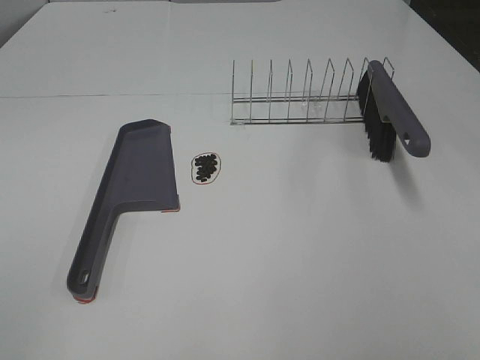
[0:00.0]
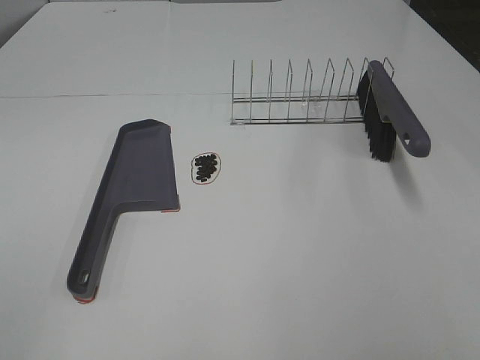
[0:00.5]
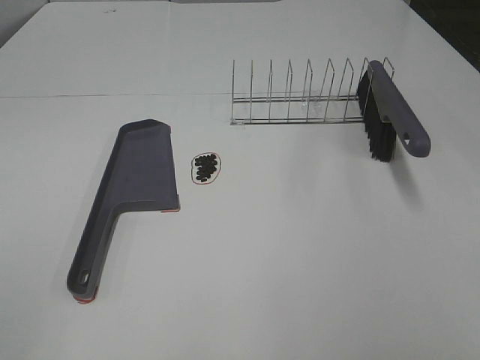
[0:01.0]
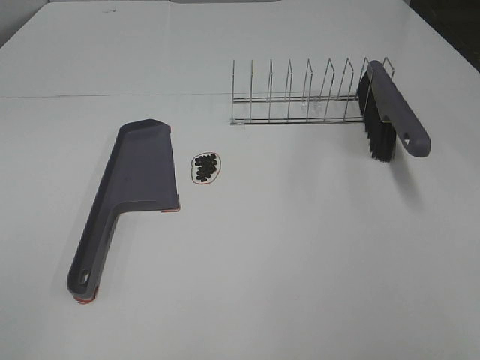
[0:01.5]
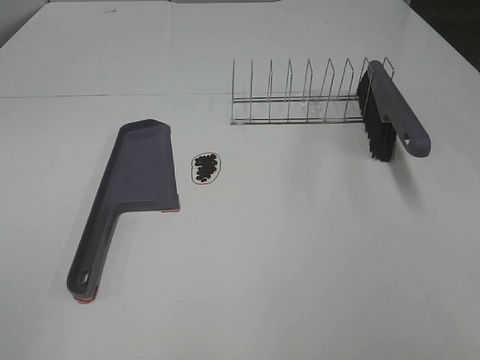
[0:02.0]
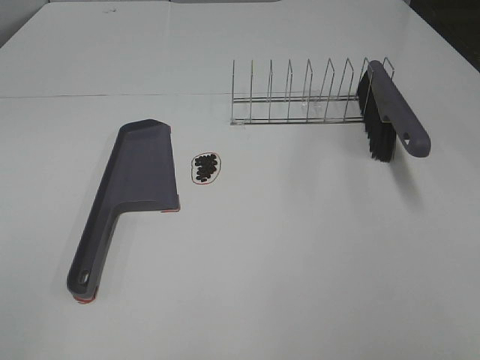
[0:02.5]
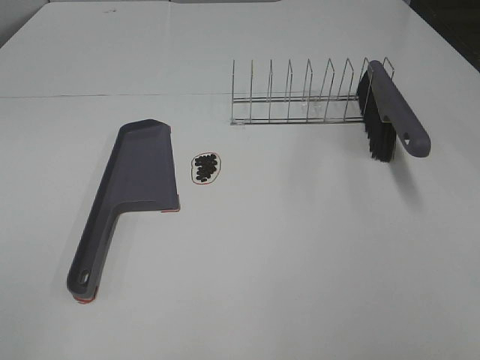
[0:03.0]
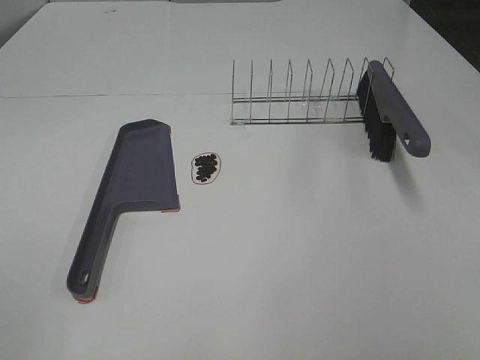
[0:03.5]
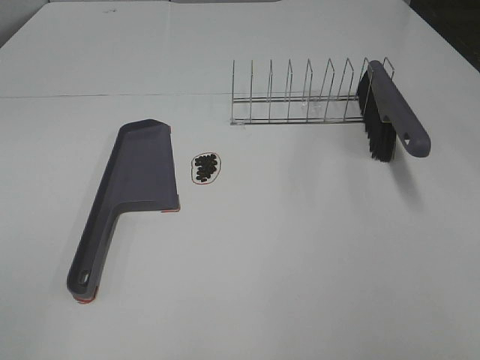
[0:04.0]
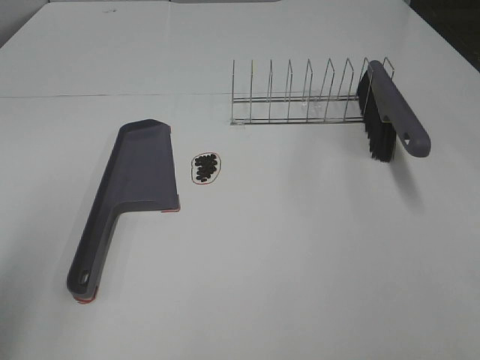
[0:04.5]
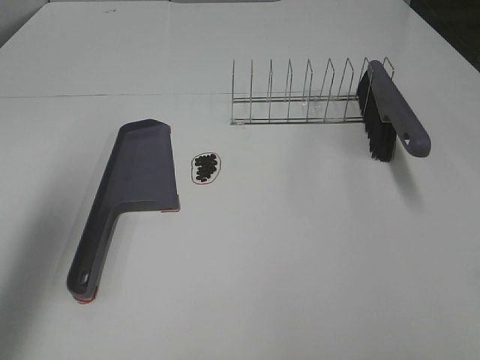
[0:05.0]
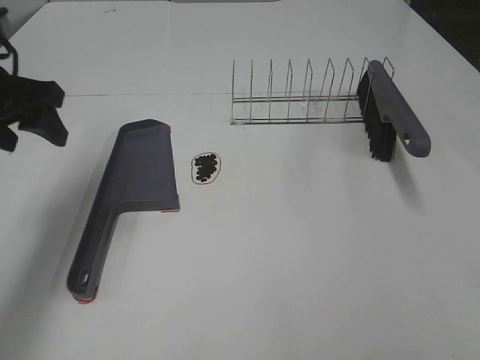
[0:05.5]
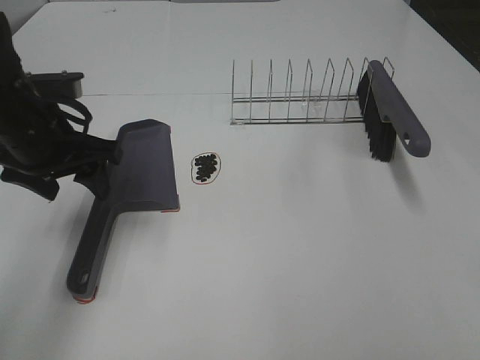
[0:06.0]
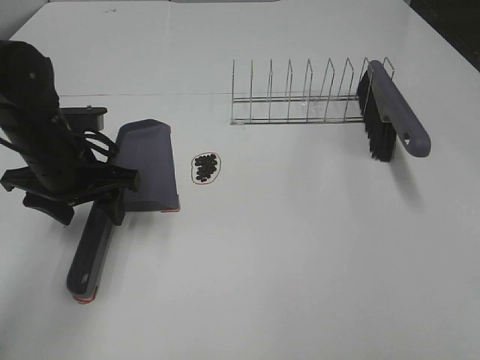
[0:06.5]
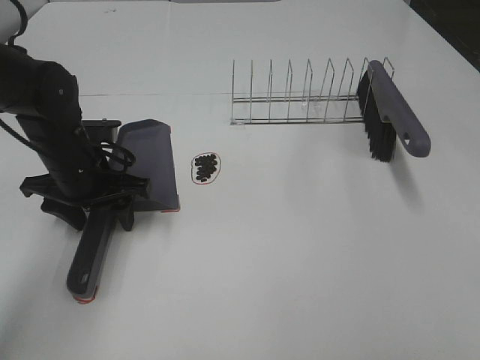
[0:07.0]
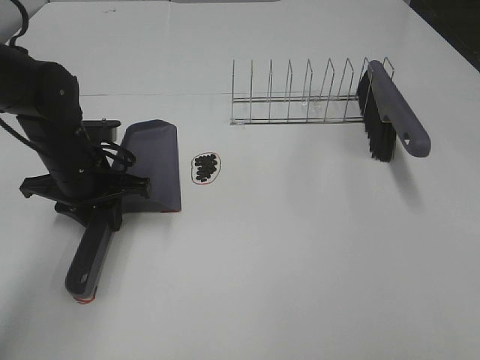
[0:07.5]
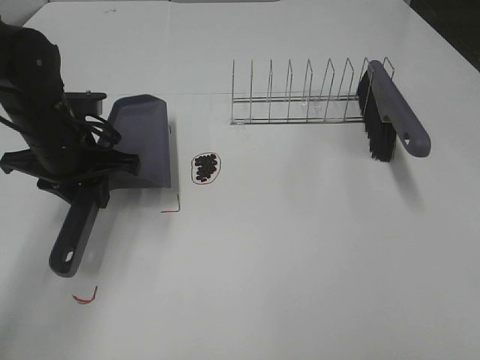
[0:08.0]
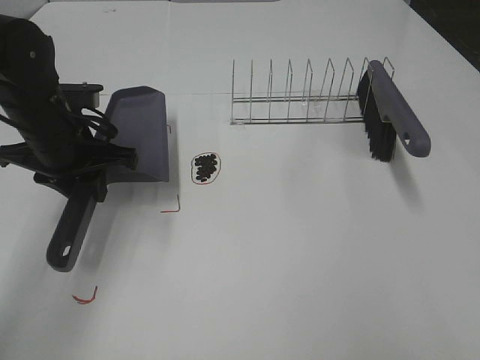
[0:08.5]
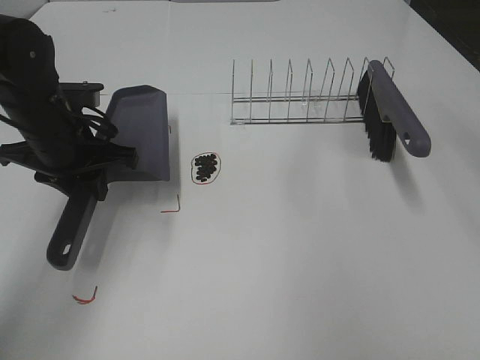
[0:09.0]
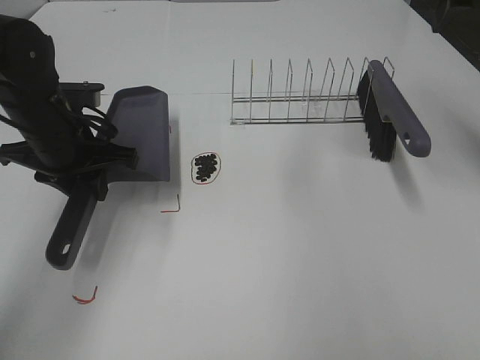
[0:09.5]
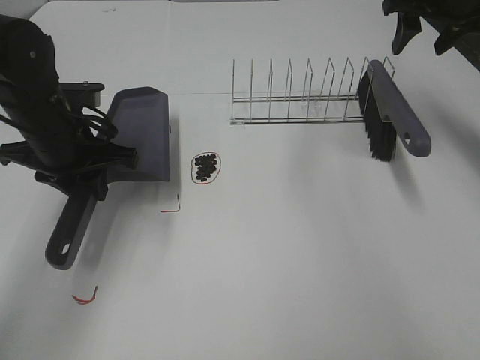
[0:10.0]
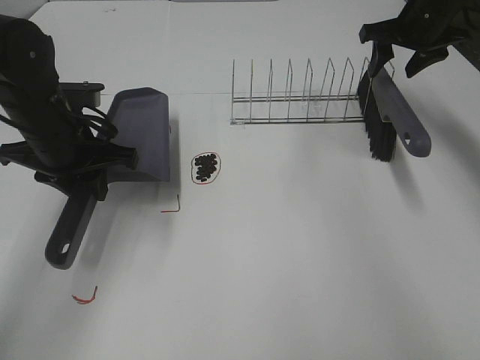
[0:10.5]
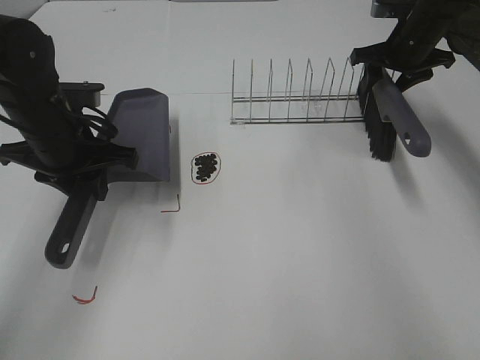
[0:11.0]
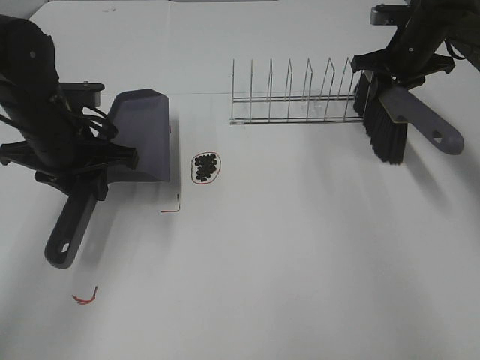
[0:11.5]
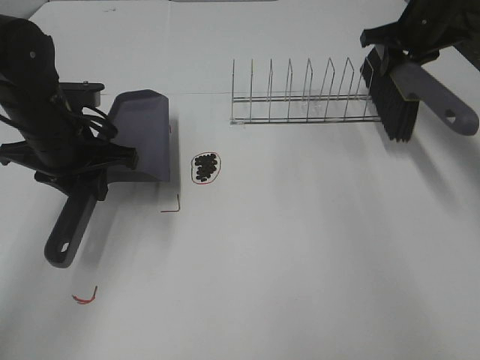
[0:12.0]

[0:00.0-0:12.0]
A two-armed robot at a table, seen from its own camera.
Task of the whole recording: Sweep Coffee Bean.
Step, 0:00.0 to 0:07.5: Left hand: grab the dustpan.
Step, 0:08.5 to 0:11.0: Right hand:grab the broom.
0:00.0 to 0:04.0: The two grippers keep their place.
0:04.0 to 0:06.0: The left gripper heads forward, covering about 30 cm.
0:06.0 to 0:08.0: The left gripper closes its fingers.
0:08.0 to 0:10.0: The right gripper is displaced forward by some 50 cm.
0:10.0 to 0:12.0: The right gripper heads downward, covering roughly 5 cm, and closes up.

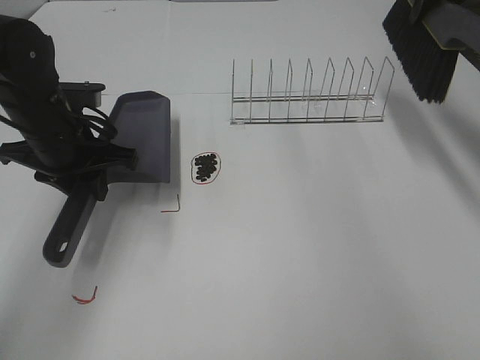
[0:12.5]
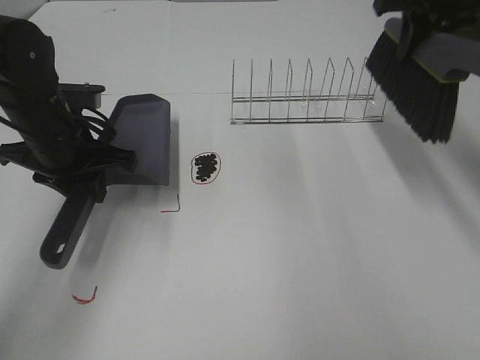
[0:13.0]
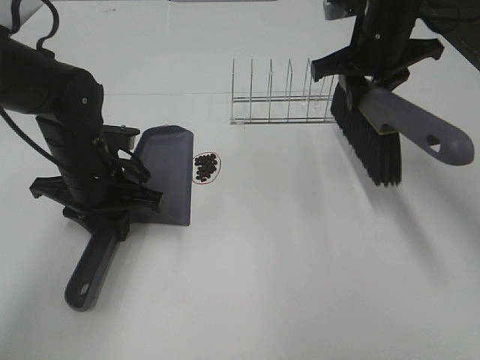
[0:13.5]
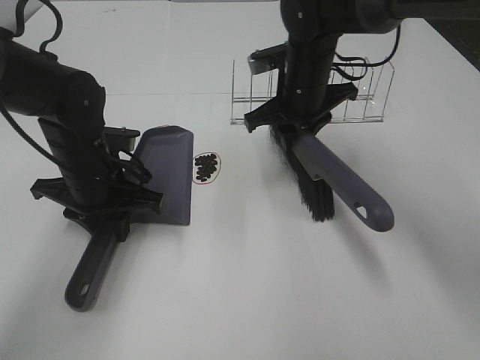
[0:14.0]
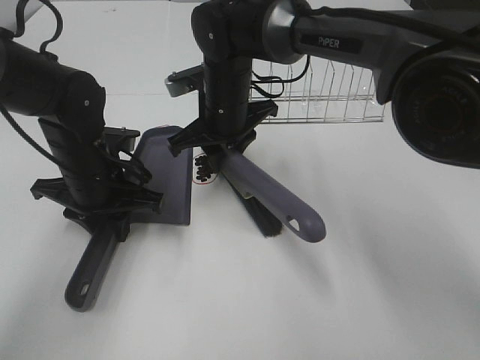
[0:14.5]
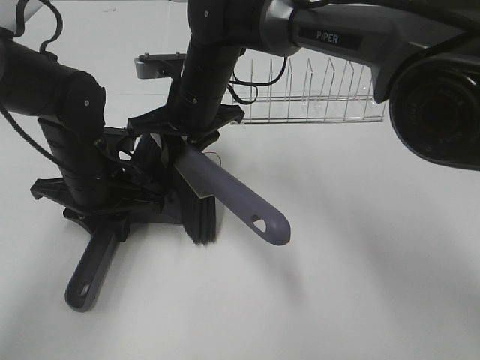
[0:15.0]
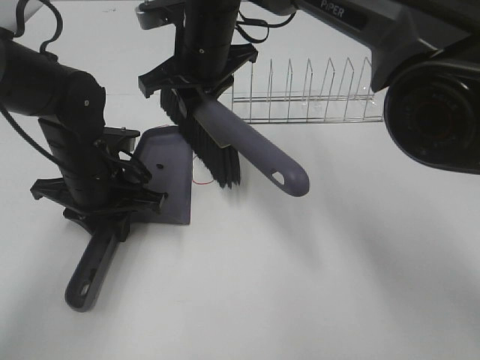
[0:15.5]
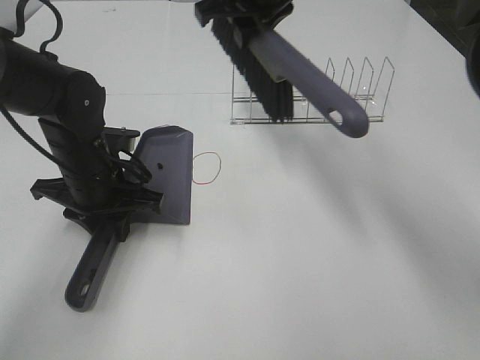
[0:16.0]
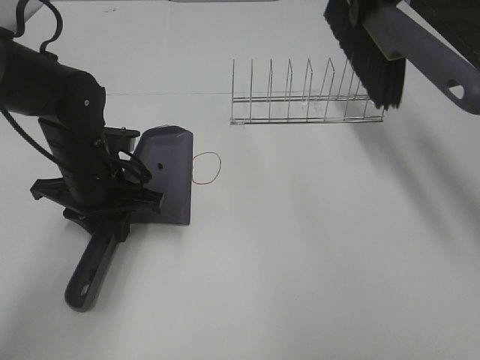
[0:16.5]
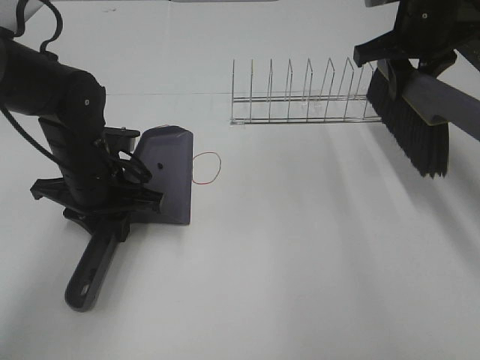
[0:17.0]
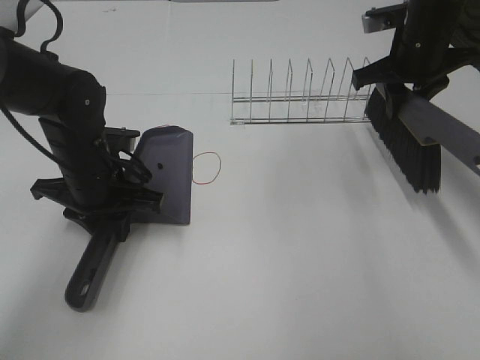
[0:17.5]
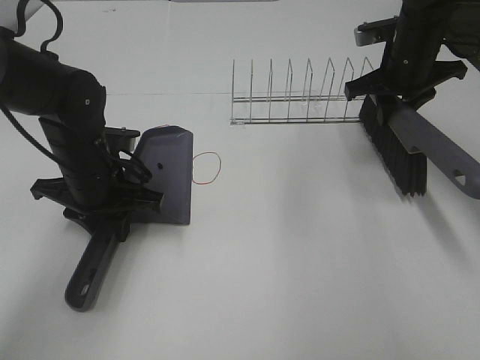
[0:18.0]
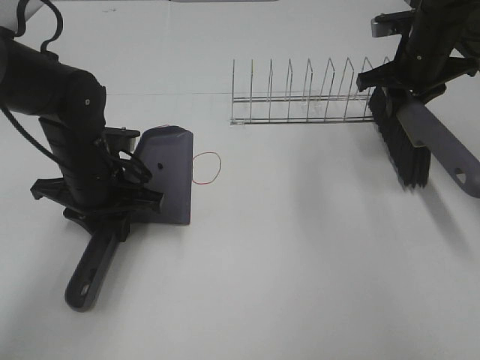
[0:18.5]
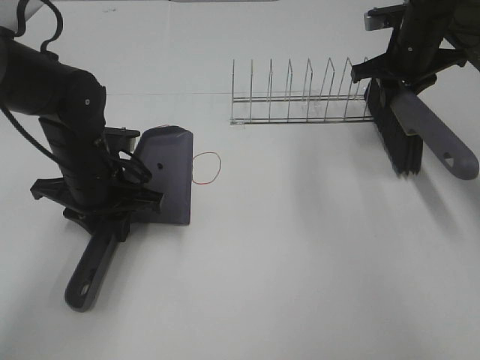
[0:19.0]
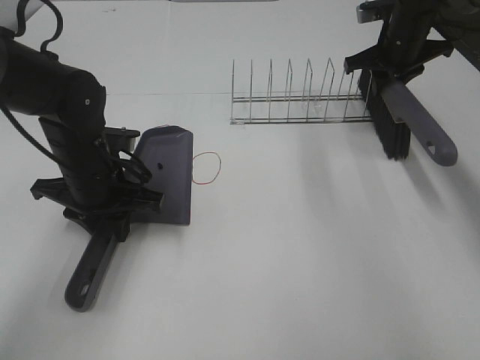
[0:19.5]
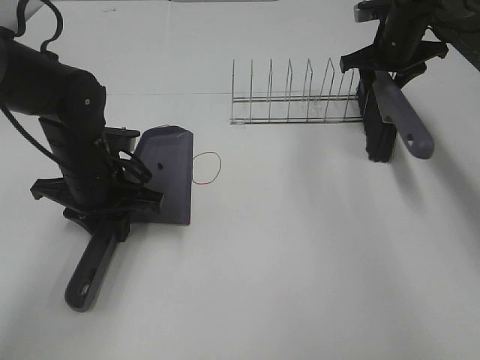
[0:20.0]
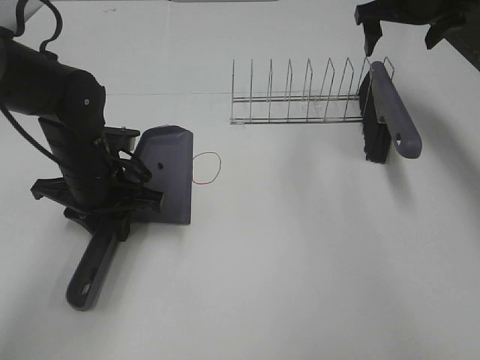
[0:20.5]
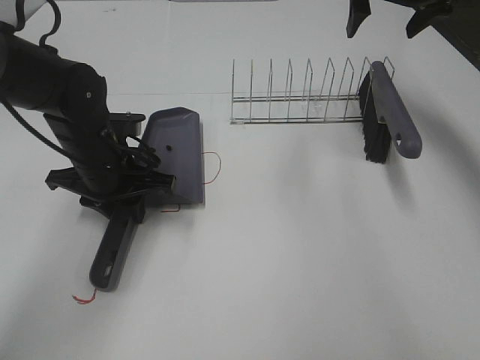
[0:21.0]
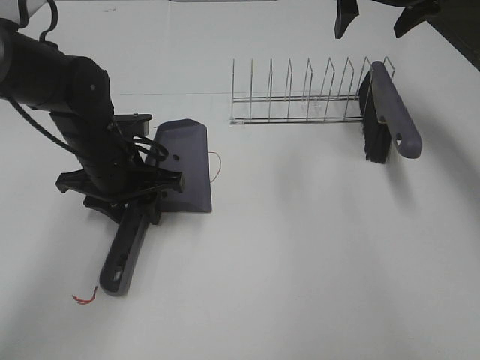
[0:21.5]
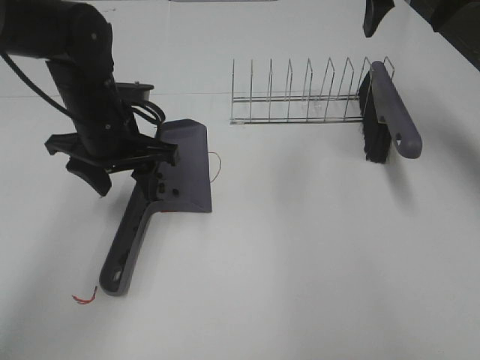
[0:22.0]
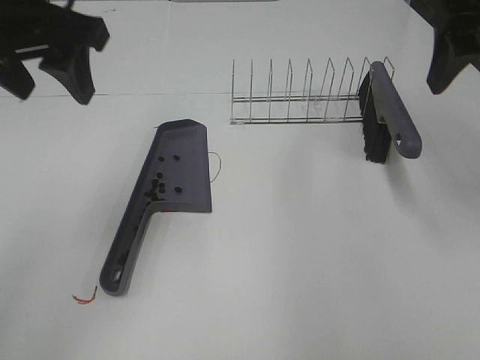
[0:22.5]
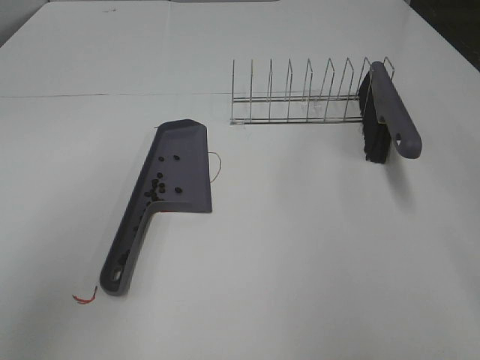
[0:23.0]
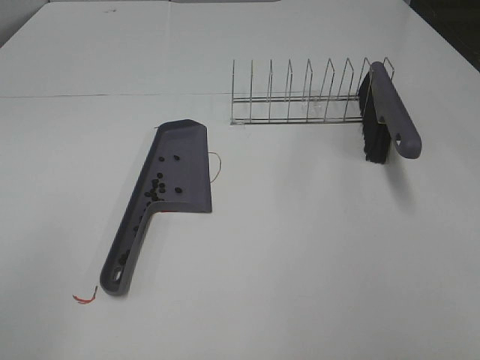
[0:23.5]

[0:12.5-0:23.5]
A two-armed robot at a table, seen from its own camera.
Task of the whole recording: Sweep Coffee Bean.
Step, 0:12.5 to 0:15.5: Right hand:sweep the coffee beans into the dustpan.
Step, 0:16.0 to 0:20.0: Right hand:place the broom on the rack.
Step, 0:20.5 to 0:21.5: Left hand:place the dustpan on the table.
0:12.5 to 0:14.5: The right gripper shifts about 35 cm to the left and downward, while the left gripper travels downward by roughly 5 cm.
0:14.5 to 0:16.0: The right gripper heads upward, covering about 15 cm.
0:16.0 to 0:18.0: The right gripper travels to the right and downward by roughly 20 cm.
0:18.0 to 0:20.0: The right gripper goes roughly 10 cm forward, and opens up.
0:20.0 to 0:21.5: The left gripper opens up. The right gripper is displaced upward by some 10 cm, and opens.
0:21.5 to 0:23.5: The left gripper goes approximately 40 cm backward, upward and to the left, and opens its fingers. Meanwhile the right gripper is displaced backward by roughly 50 cm.

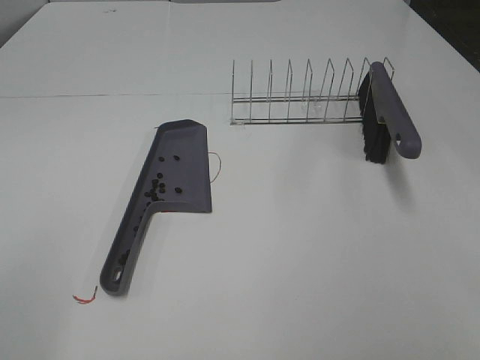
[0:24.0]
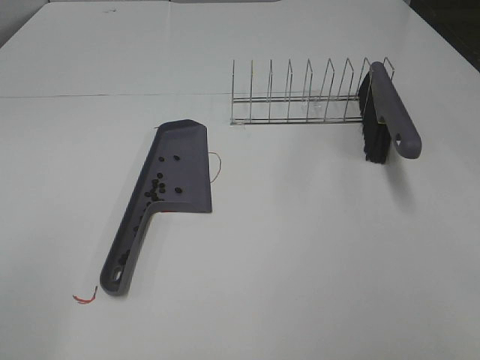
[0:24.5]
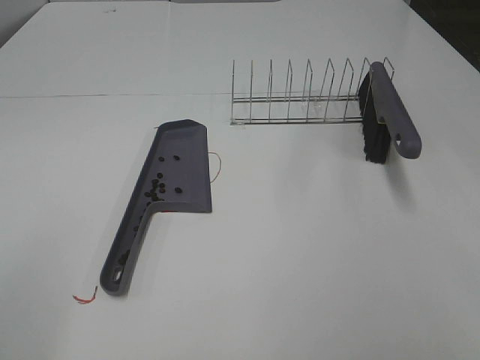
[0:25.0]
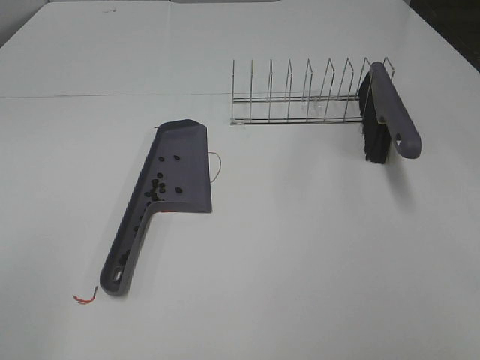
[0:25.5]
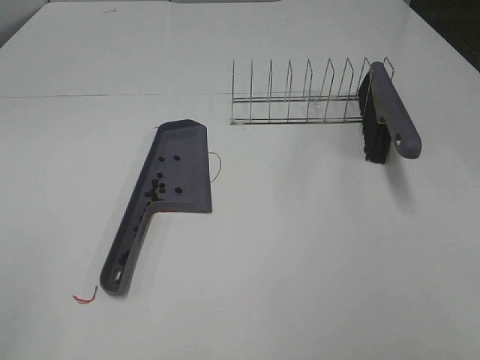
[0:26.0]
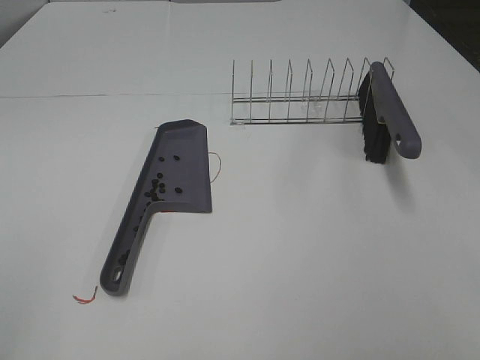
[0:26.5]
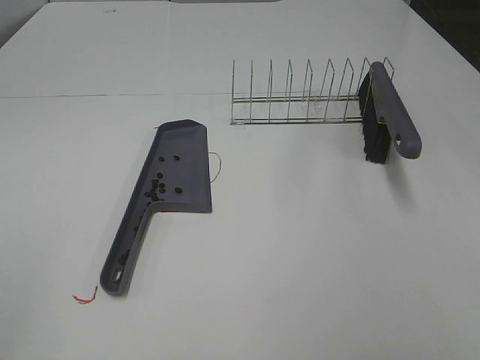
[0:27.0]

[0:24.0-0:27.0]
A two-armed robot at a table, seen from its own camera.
Task of the whole recording: Sweep Coffee Bean.
0:24.0 to 0:25.5: The two grippers keep their place.
